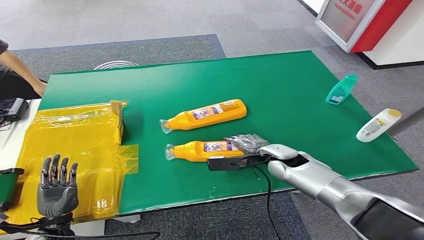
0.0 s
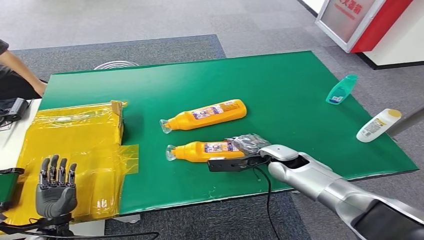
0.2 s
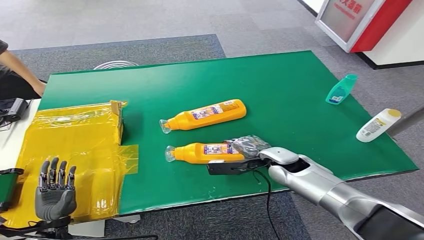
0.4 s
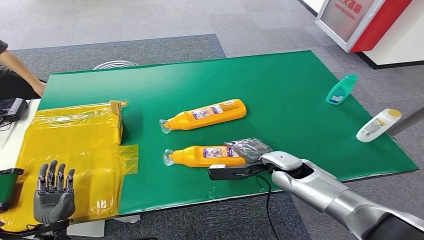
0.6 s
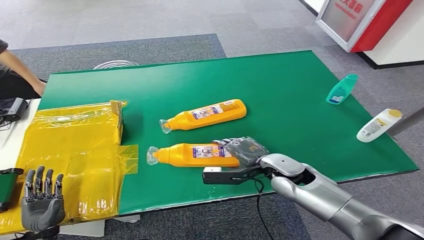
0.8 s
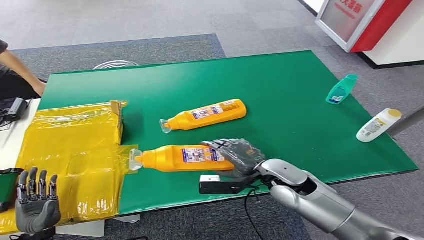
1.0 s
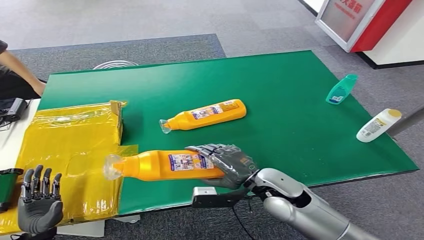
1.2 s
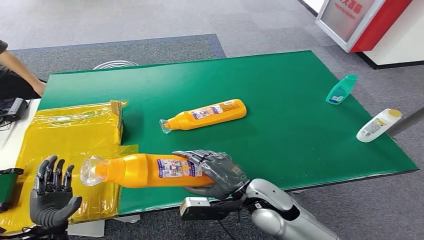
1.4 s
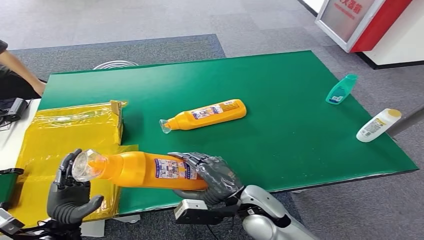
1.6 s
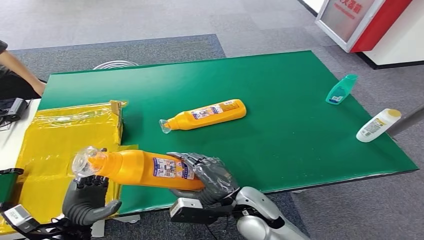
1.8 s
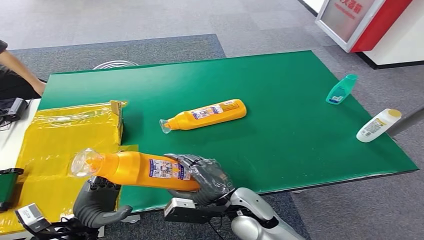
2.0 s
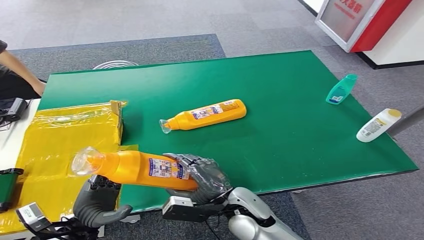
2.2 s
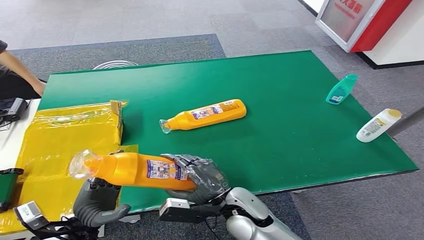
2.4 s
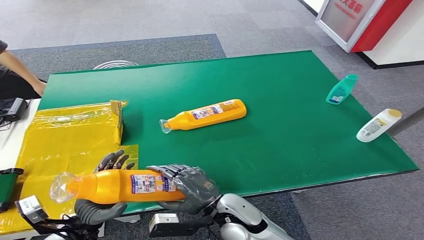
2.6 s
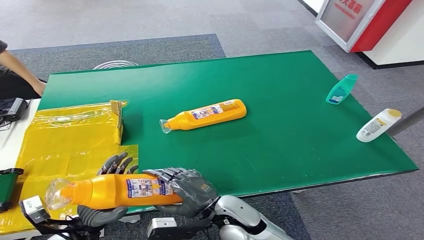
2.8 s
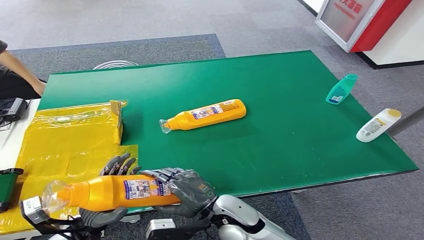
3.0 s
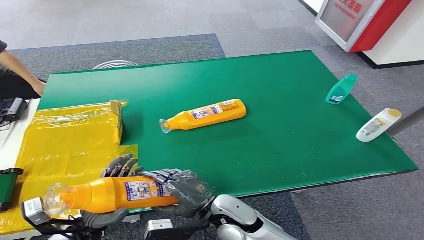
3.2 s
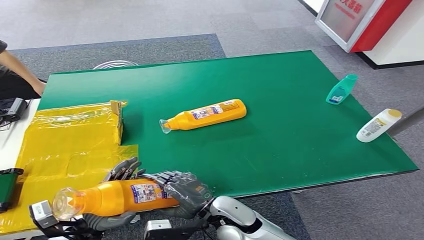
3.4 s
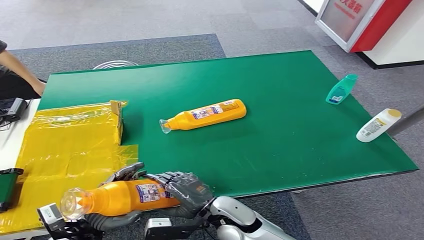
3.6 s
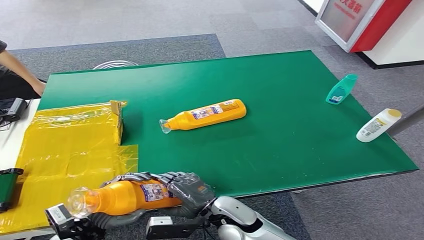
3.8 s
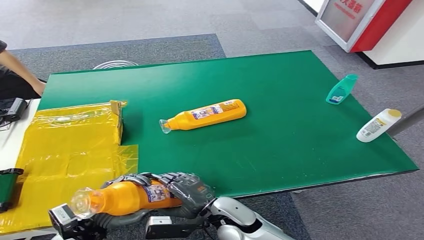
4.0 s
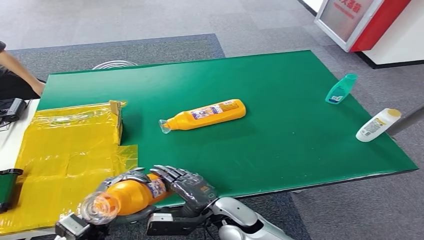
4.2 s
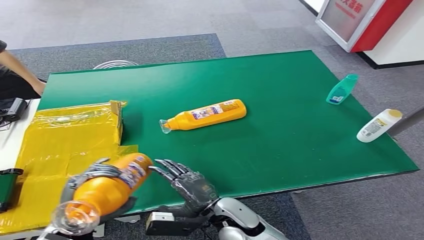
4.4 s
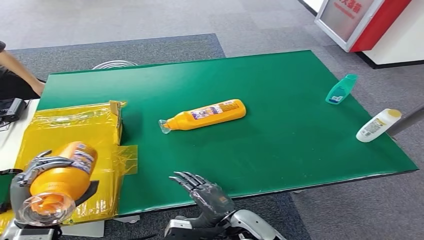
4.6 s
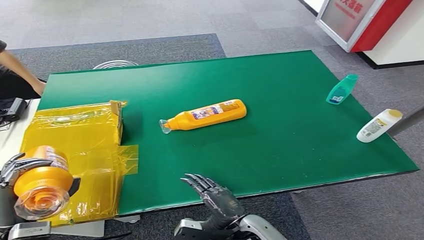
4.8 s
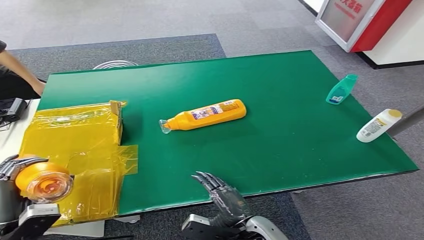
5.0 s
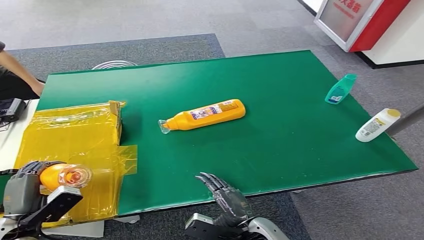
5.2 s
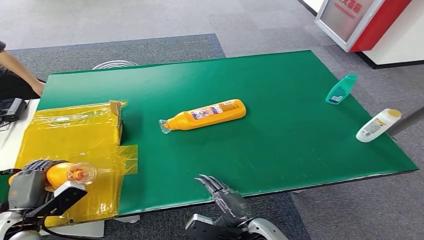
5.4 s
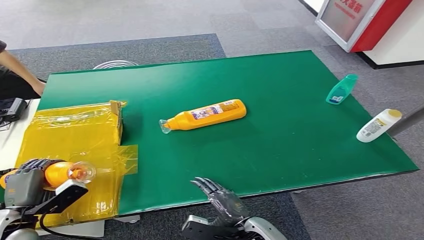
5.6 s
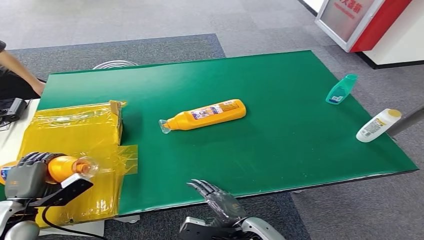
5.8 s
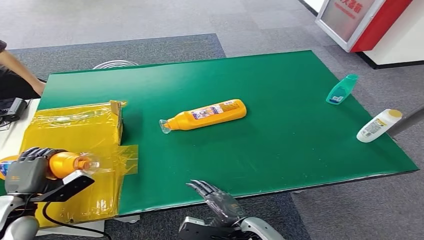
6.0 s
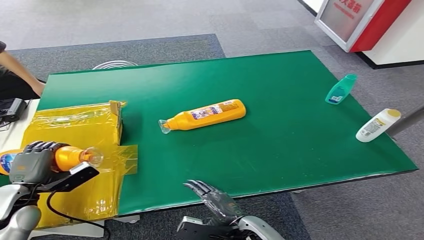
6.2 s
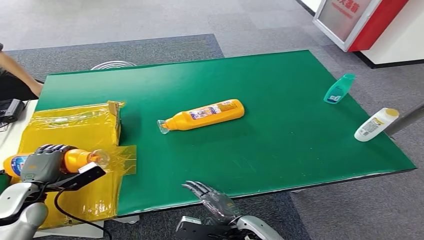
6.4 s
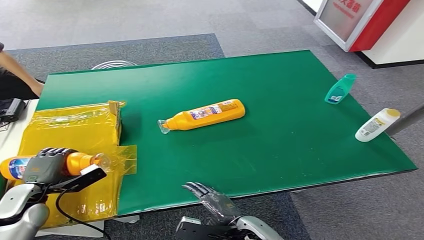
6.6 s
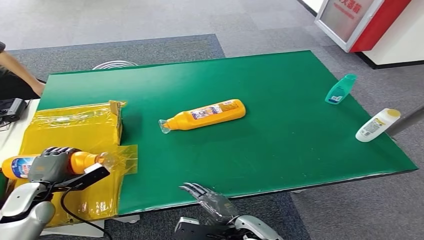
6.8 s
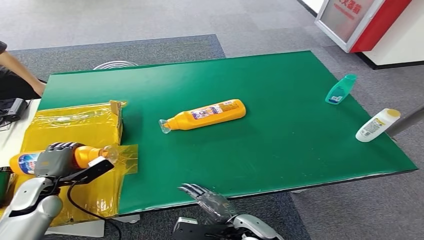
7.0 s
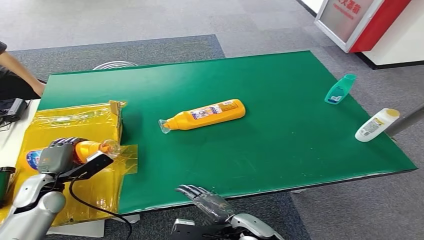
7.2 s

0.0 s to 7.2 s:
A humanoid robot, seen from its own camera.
Step, 2.6 to 7.2 s: Turn the bottle to the front side.
0.0 to 1.4 s: The right hand is displaced backward and to the left by approximately 15 cm.
1.4 to 2.8 s: The left hand travels to the right by approximately 5 cm. The right hand shifts approximately 5 cm to the left.
4.4 to 5.8 s: The left hand heads to the left, covering approximately 15 cm; the right hand goes approximately 5 cm to the right.
5.8 to 7.2 s: The left hand shifts roughly 10 cm forward.

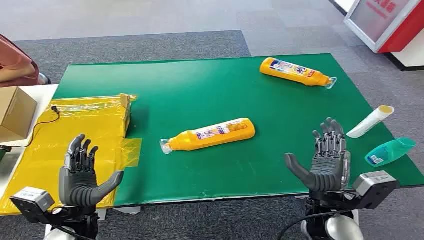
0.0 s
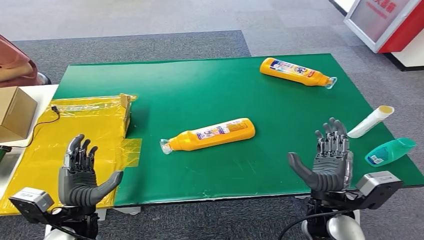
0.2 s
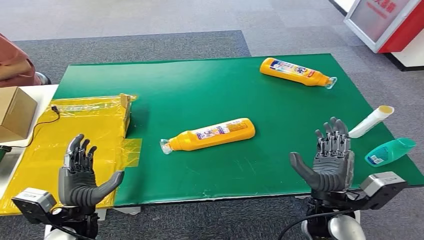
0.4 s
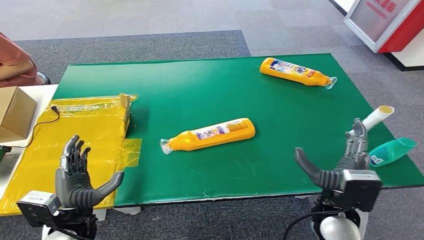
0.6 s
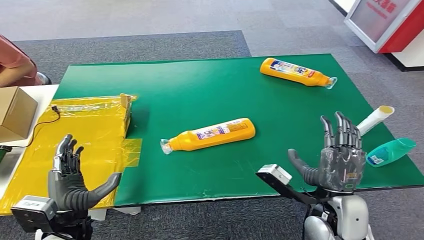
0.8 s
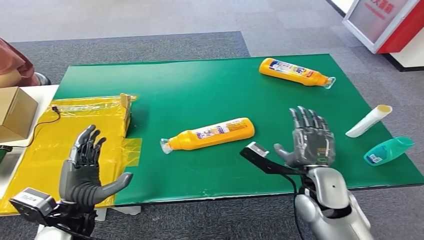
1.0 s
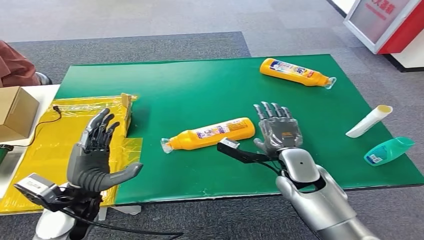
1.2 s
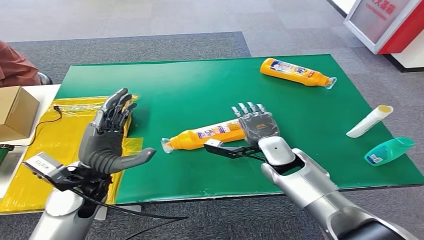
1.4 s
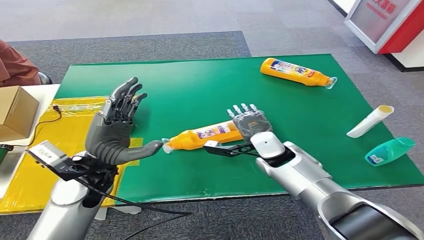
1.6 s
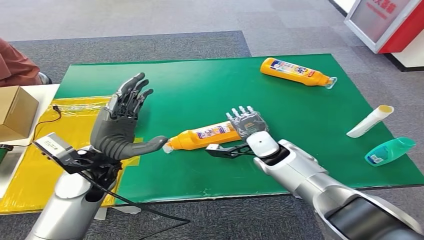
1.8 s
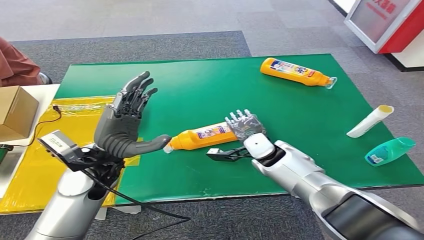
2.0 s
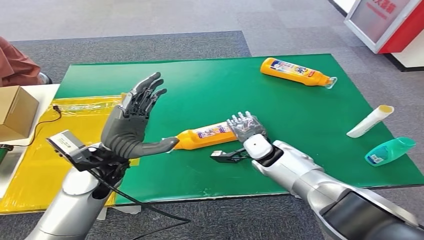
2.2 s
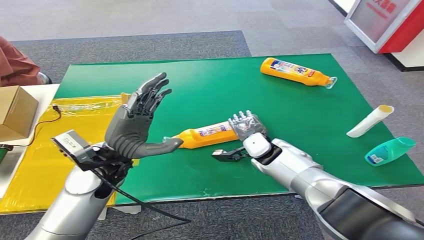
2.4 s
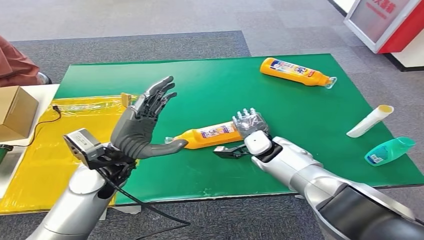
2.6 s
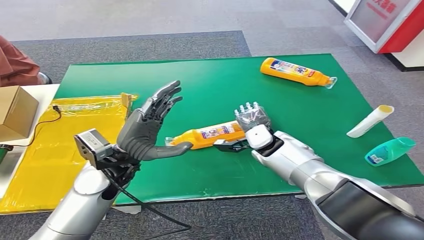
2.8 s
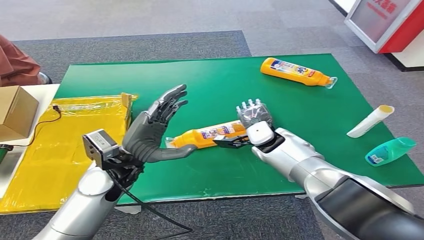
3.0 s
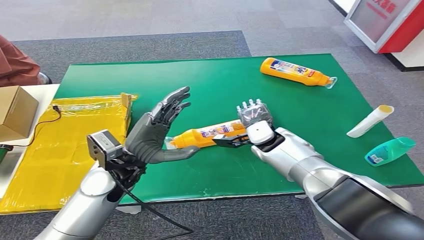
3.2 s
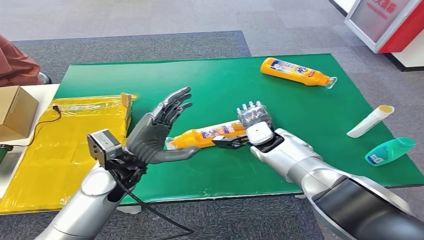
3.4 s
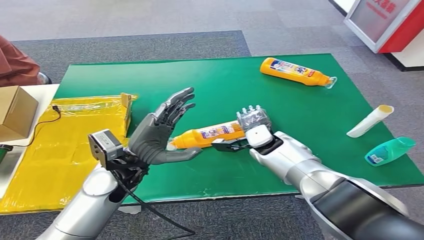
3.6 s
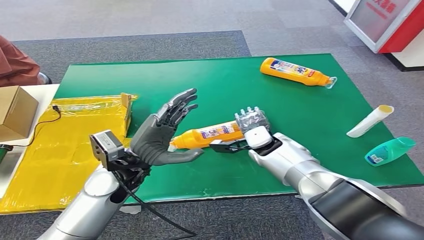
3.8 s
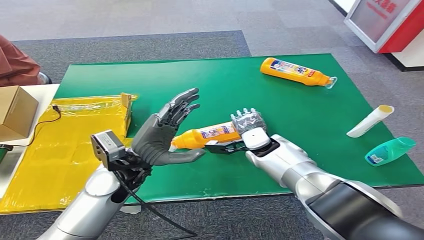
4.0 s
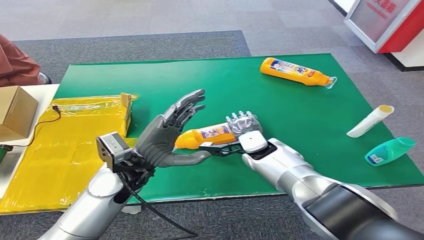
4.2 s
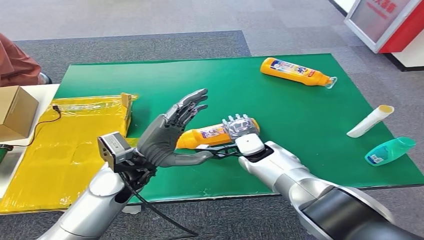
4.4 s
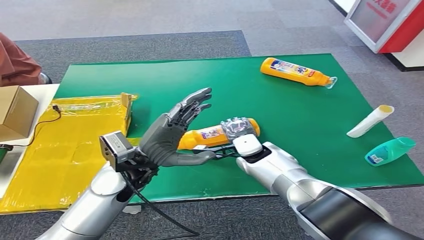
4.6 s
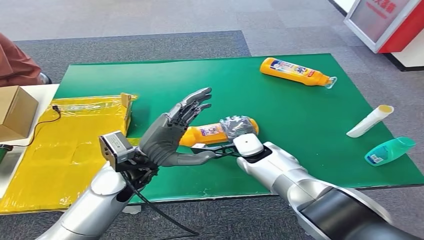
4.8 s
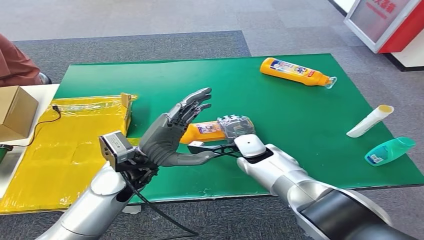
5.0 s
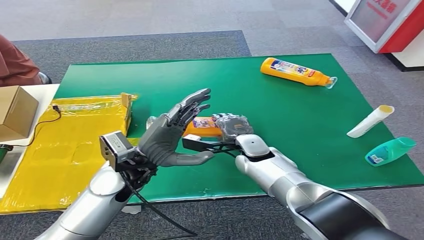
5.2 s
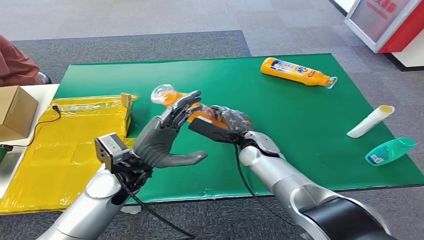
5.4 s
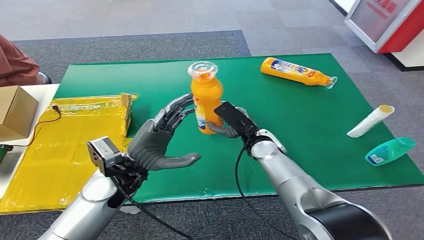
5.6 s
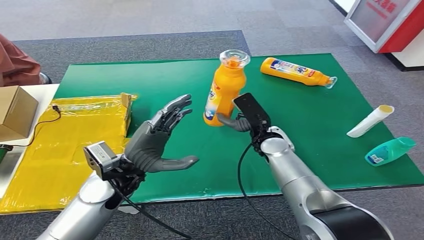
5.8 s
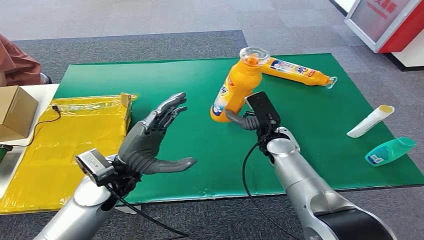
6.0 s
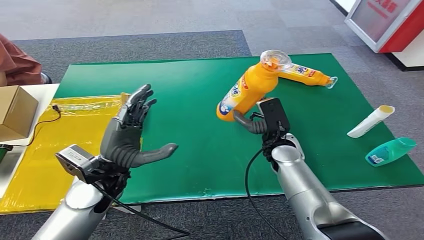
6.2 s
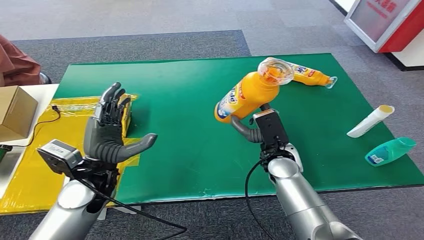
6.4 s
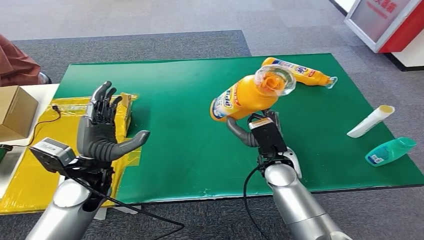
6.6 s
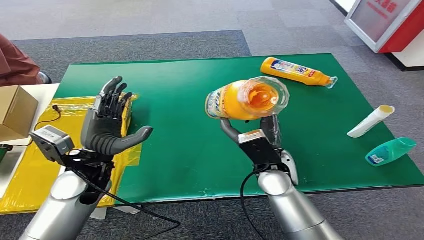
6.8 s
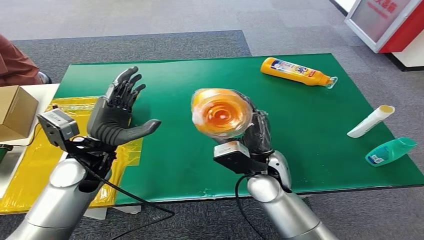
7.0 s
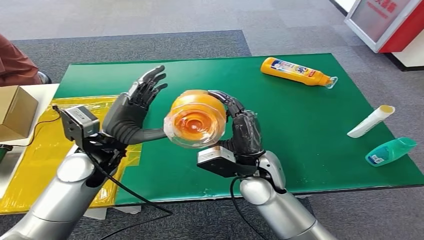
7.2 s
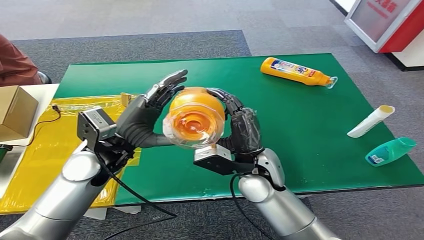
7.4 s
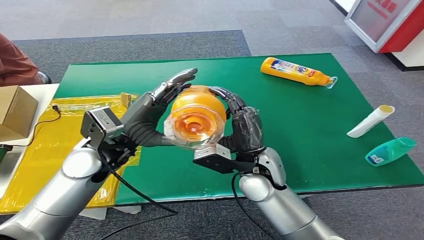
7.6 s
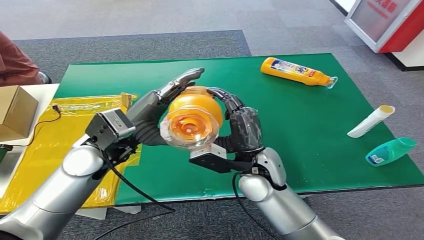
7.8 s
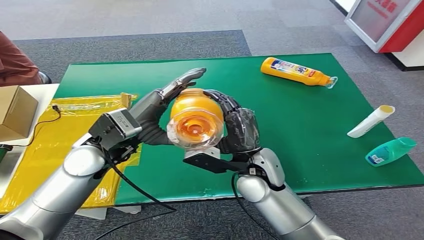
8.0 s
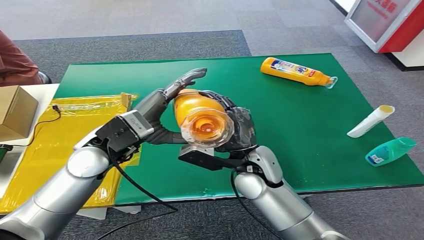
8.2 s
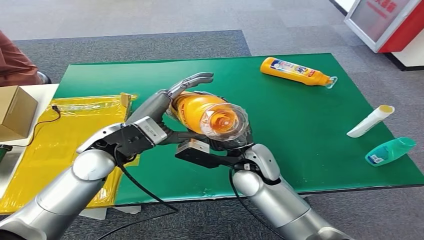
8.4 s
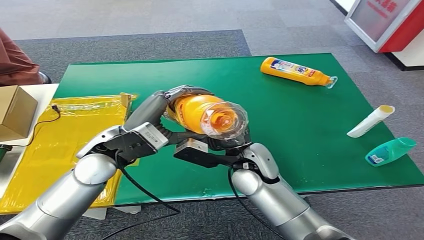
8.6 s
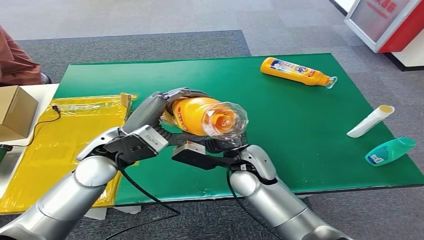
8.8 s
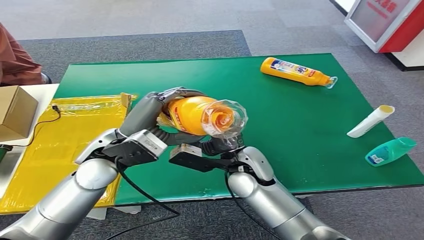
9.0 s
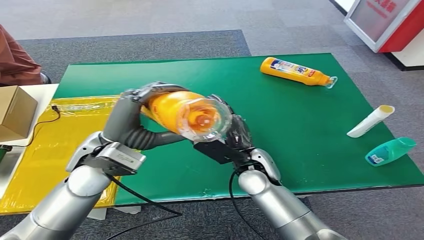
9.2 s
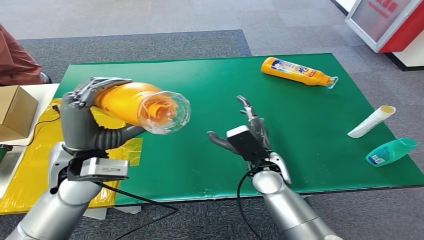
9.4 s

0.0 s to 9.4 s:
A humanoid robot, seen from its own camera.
Step, 0.0 to 6.4 s: Pick up the bottle from the table.
3.2 to 4.8 s: The right hand ends up about 5 cm from where it was.
